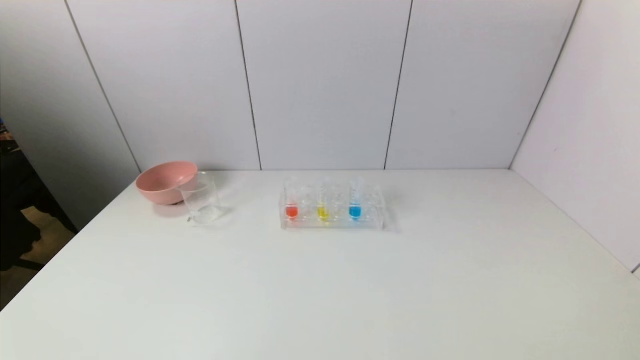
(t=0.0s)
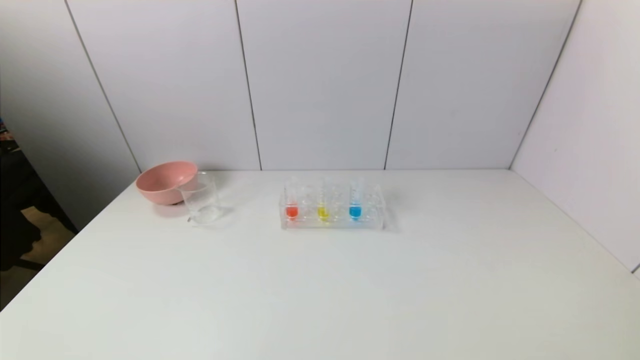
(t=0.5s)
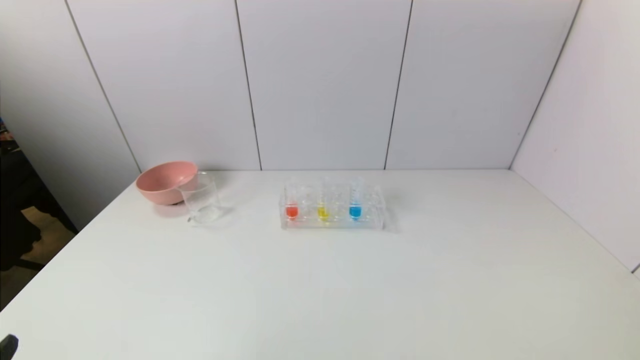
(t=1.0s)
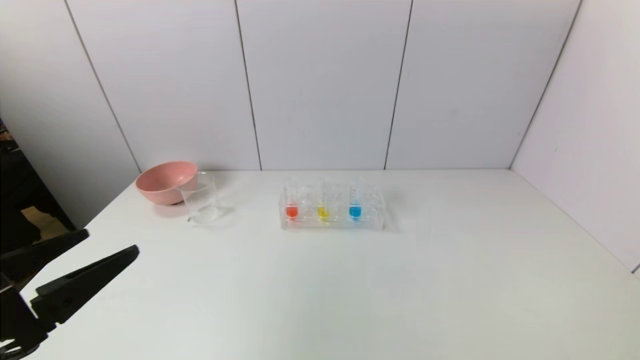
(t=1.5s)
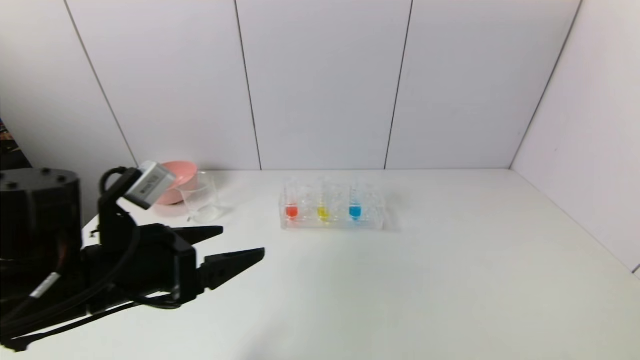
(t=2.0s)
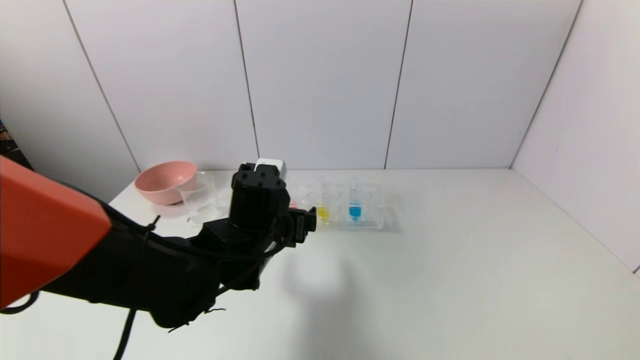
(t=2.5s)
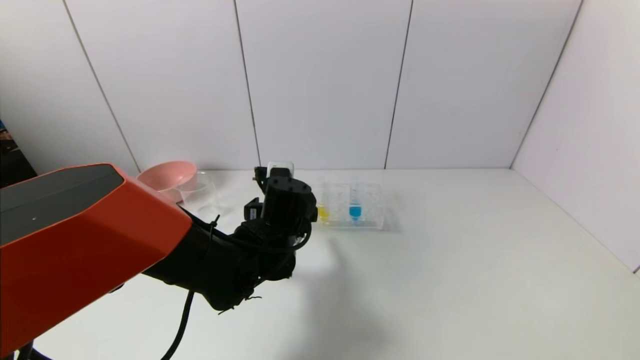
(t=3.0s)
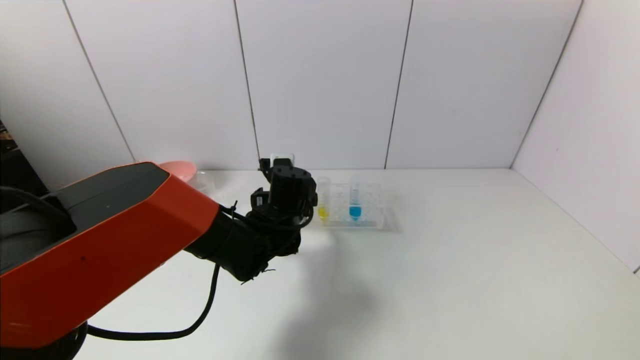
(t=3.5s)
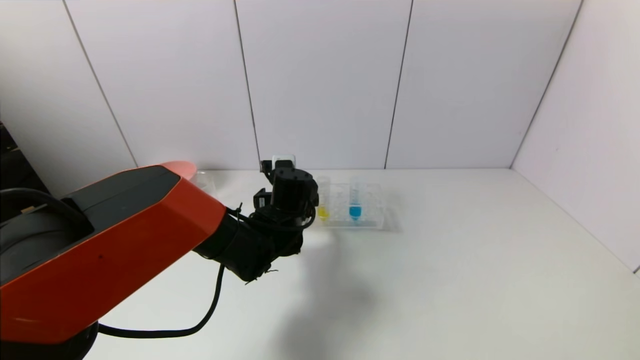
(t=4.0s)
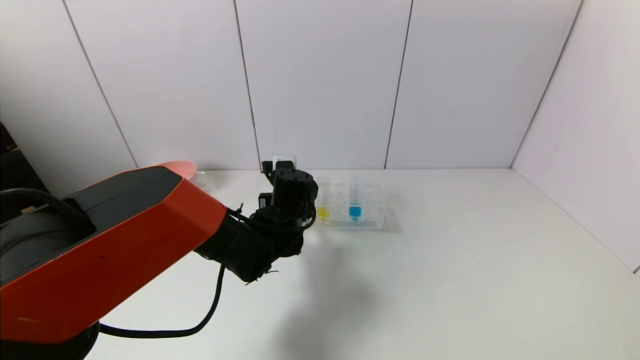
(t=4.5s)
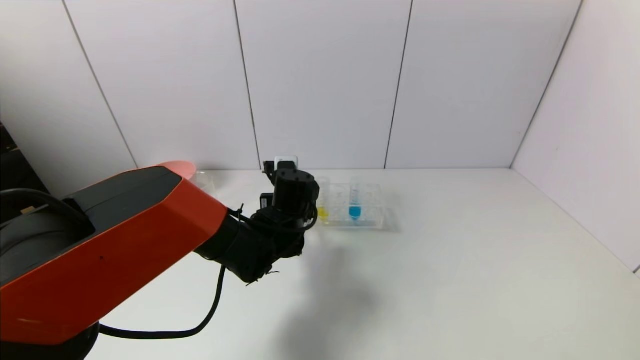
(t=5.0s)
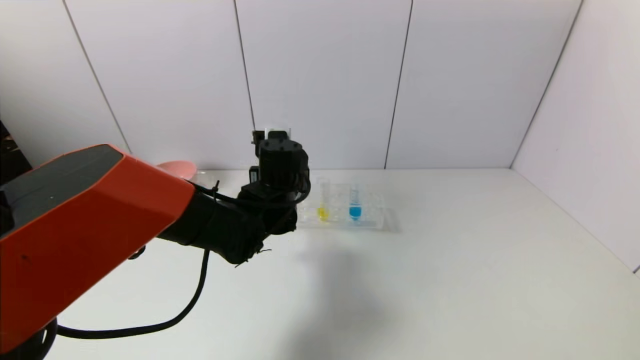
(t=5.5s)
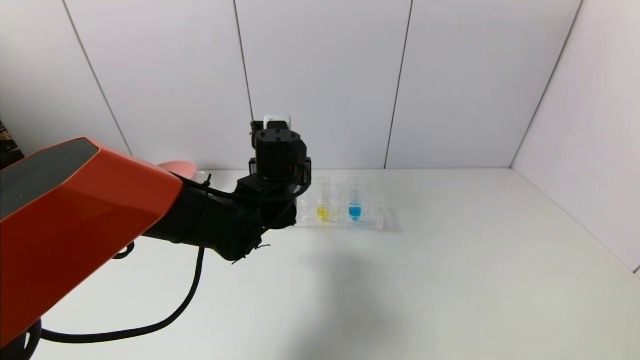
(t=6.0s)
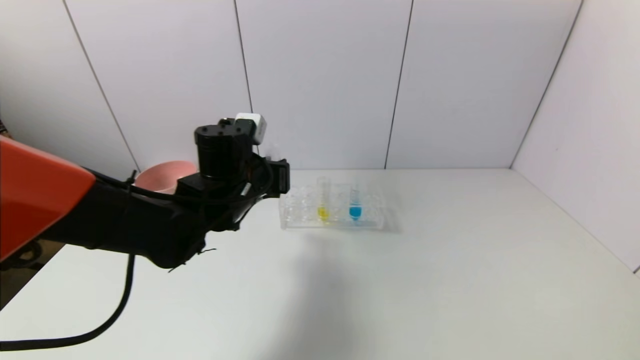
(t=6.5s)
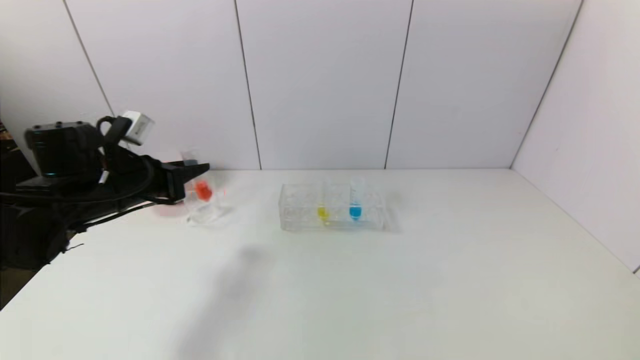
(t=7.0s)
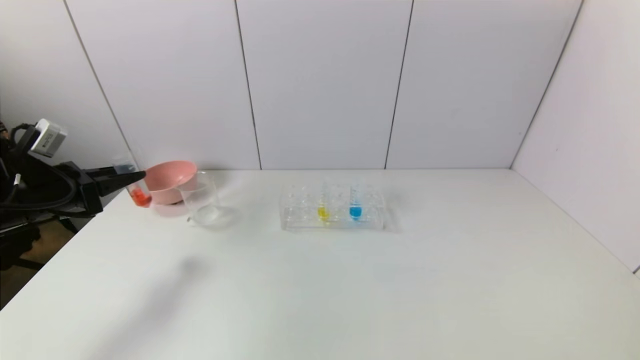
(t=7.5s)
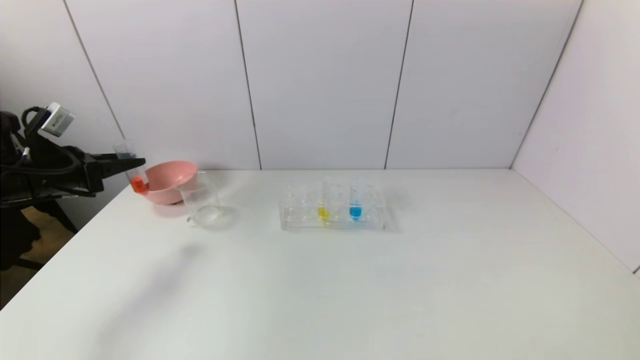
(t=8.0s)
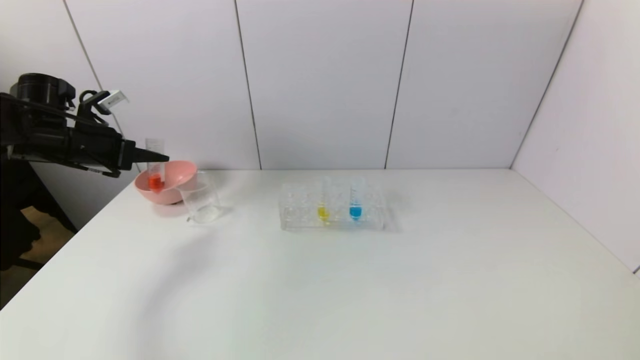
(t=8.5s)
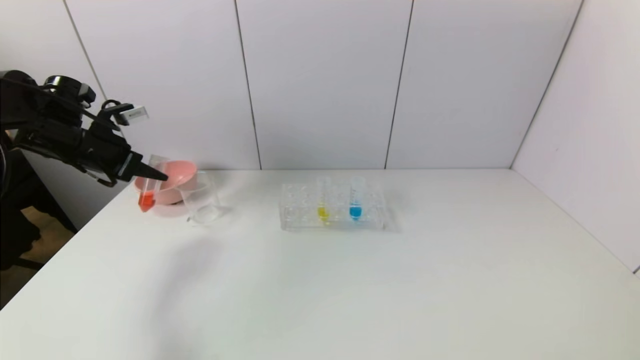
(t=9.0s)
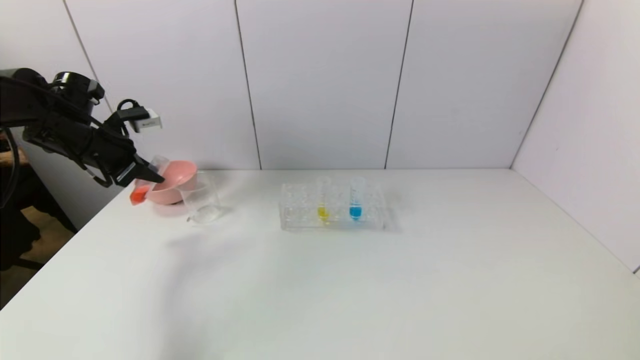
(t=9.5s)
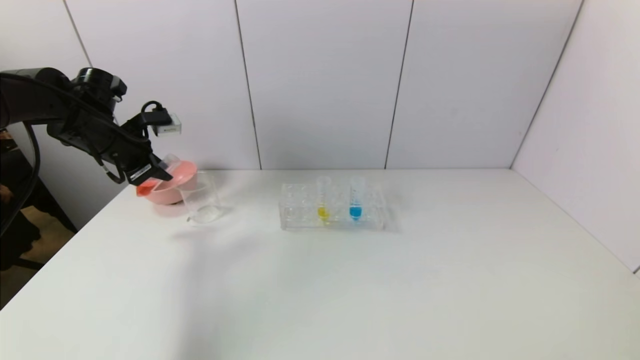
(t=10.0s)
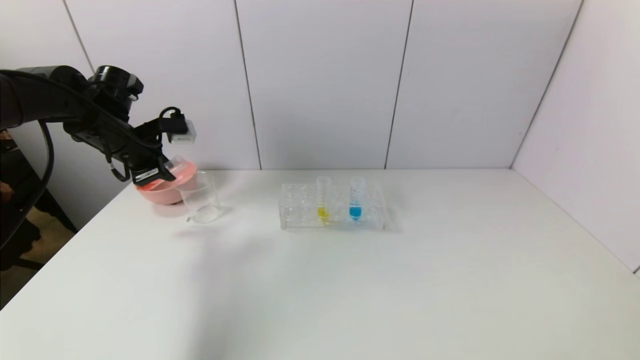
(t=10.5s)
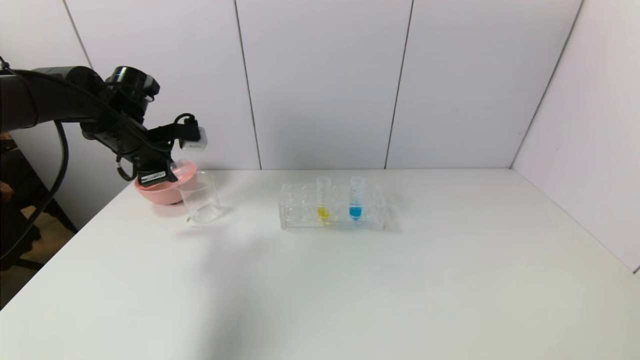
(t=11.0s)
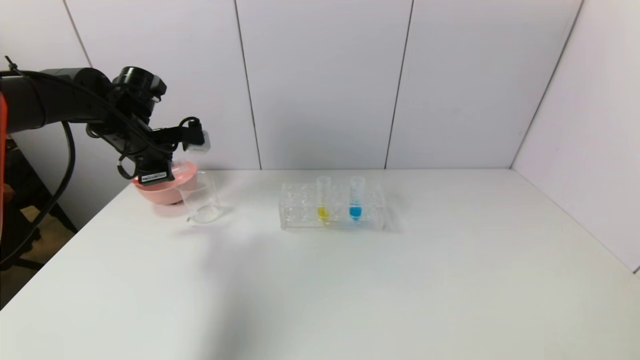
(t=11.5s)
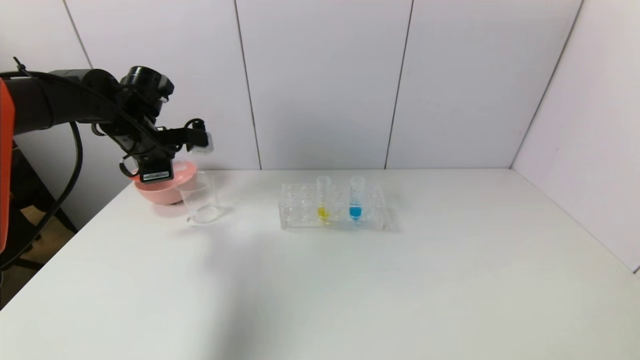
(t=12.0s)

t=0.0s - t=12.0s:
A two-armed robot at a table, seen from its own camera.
Task of the whole recording: pick up the test tube with red pigment and the test tube with blue pigment by grippers and pour them into the container.
Step, t=0.0s - t=4.5s: Grasp the red reagent with the left gripper.
t=0.0s - t=2.0s: The left gripper shifts roughly 25 cm forward, upward and to the right.
t=2.0s - t=4.0s: The left gripper shifts some 25 cm forward, to the right and downward.
t=4.0s - t=6.0s: The left gripper goes roughly 5 cm upward, and closes.
t=6.0s - t=8.0s: The left gripper goes about 35 cm to the left.
t=8.0s - t=10.0s: The left gripper heads to the right and forward, covering approximately 10 cm.
t=10.0s - t=12.0s: The left gripper shifts approximately 5 cm to the right.

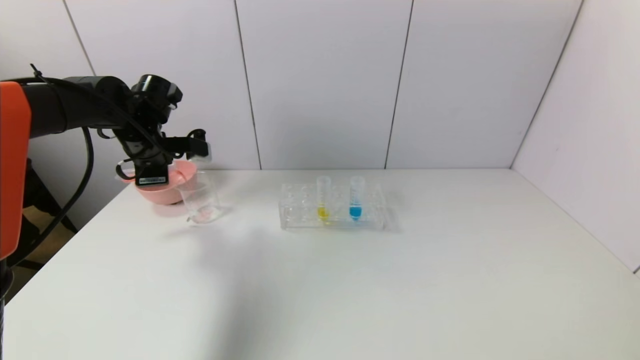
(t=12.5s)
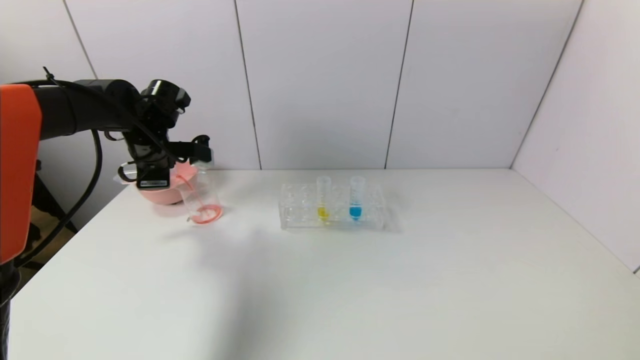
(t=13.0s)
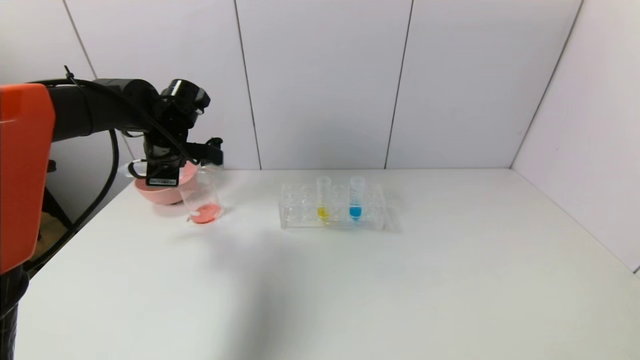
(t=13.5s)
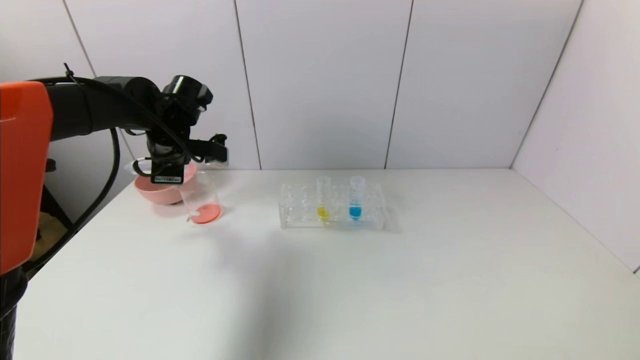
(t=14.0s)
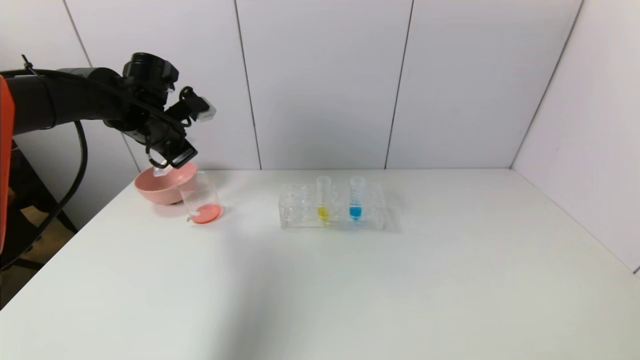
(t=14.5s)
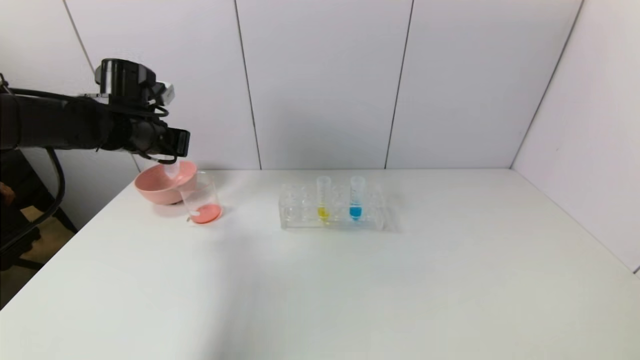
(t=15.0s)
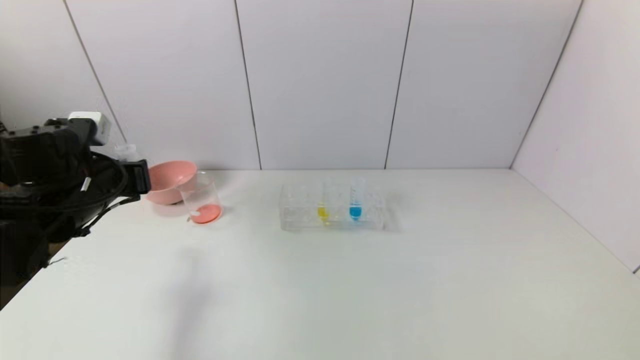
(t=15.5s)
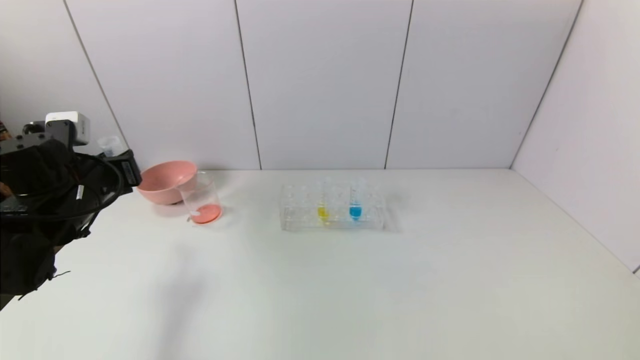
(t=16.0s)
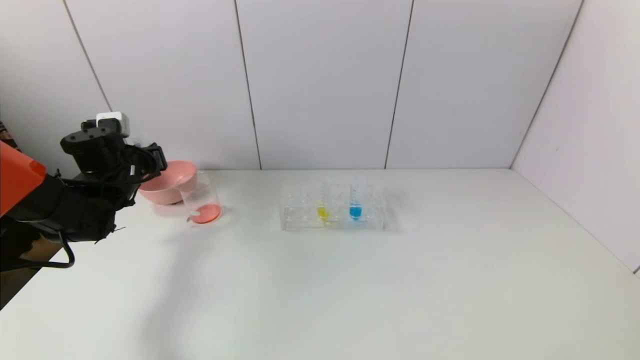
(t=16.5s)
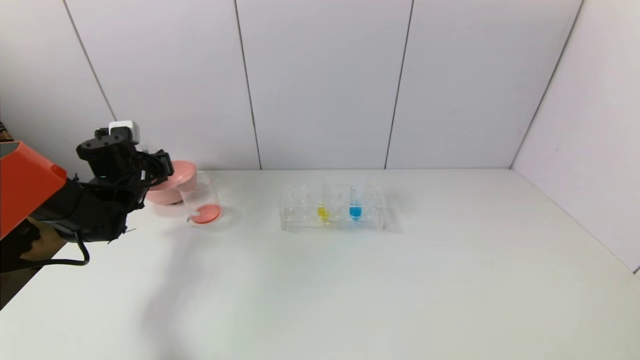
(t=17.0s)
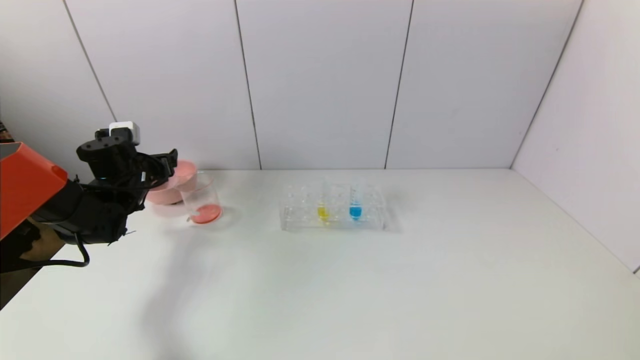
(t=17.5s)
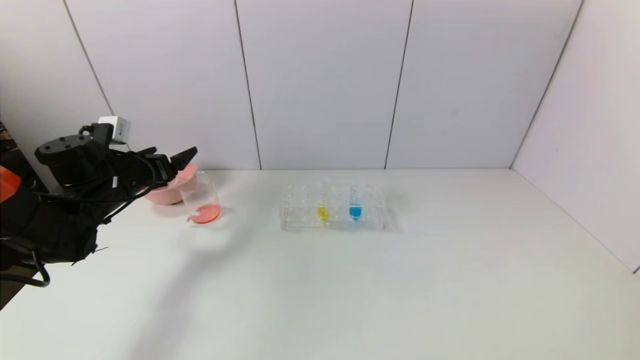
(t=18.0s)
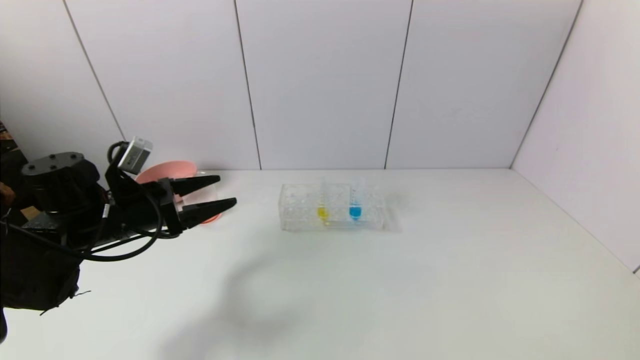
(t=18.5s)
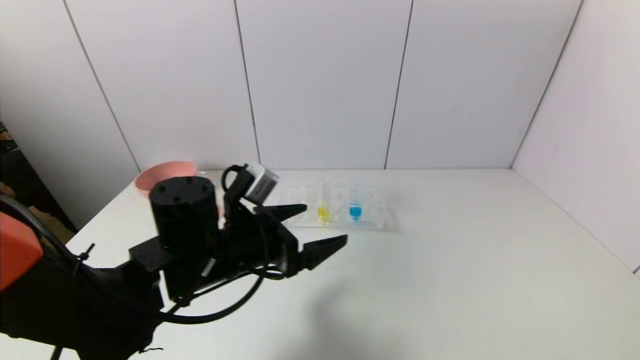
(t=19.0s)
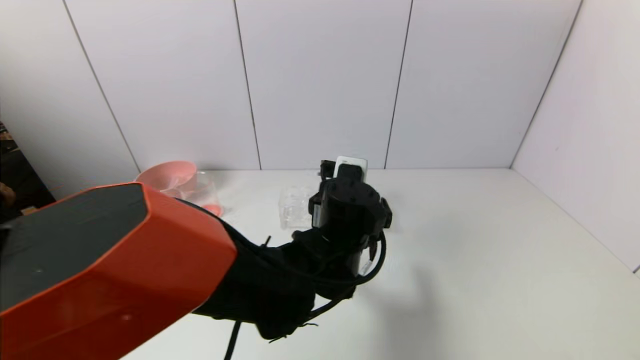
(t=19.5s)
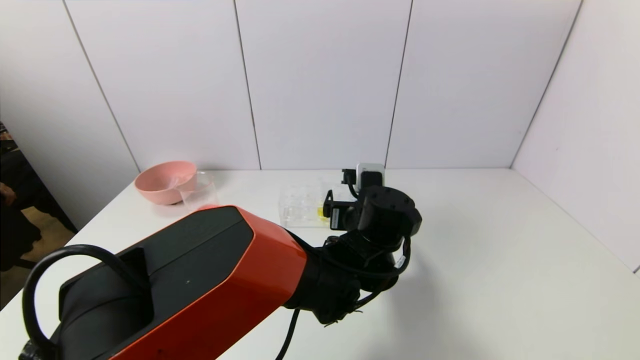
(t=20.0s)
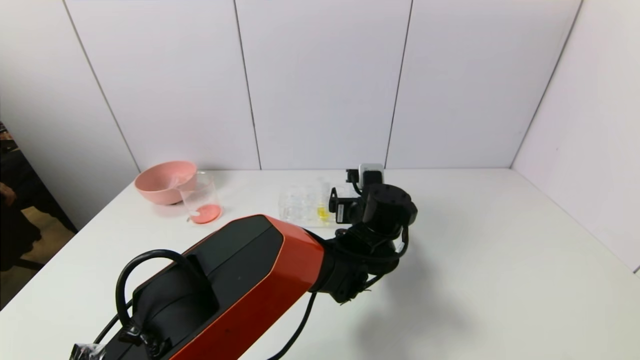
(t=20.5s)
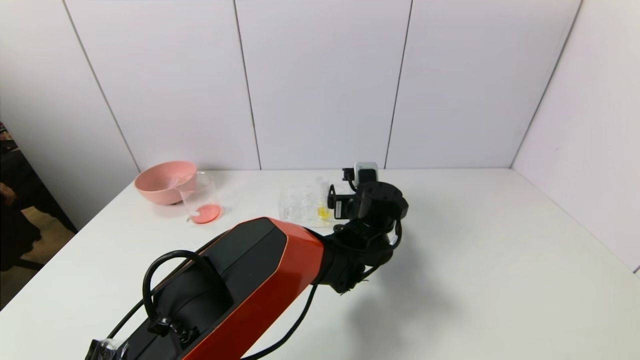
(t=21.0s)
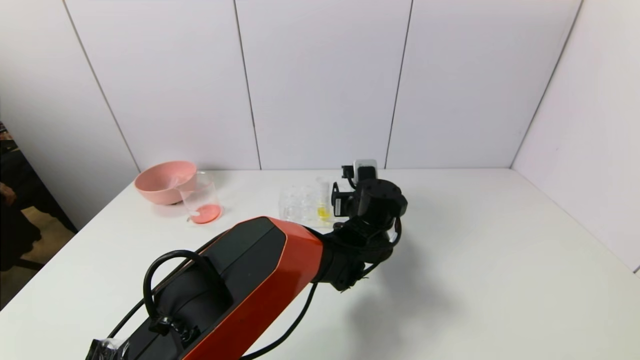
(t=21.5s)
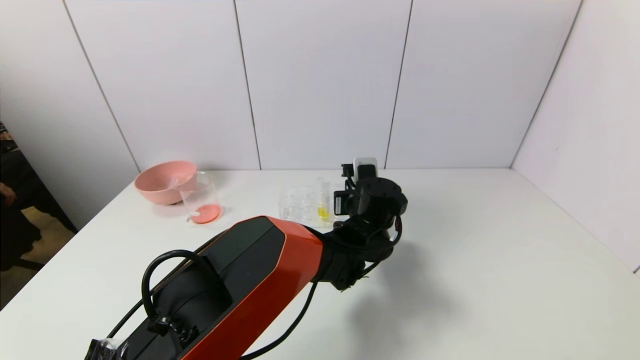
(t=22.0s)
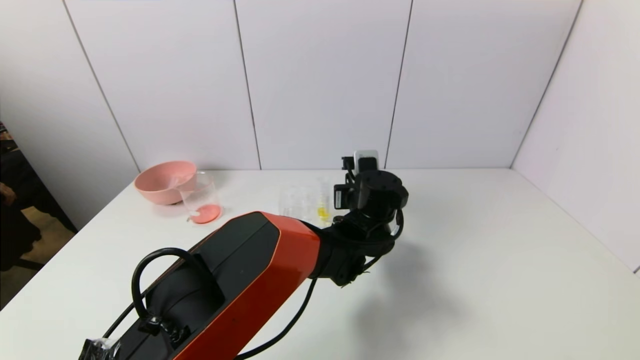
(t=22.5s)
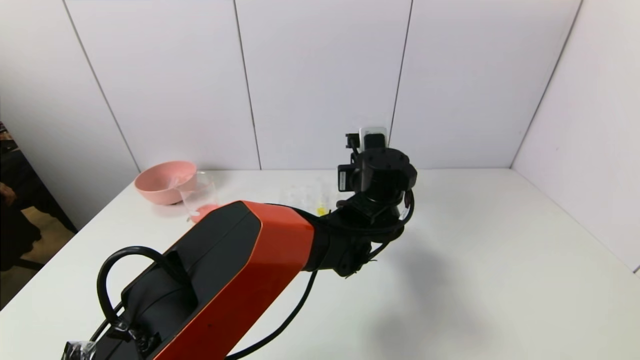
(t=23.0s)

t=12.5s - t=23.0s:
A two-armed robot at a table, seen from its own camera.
Task of the whole recording: pick up the test tube with red pigment and the test tube with blue pigment by grippers and pour them into the container.
Step, t=14.5s - t=17.0s: Place the test tube into the bowl with the left gripper.
Step, t=17.5s - t=21.5s: Grasp the blue reagent with the left gripper.
t=14.5s - t=16.5s: The left gripper moves downward and to the left, about 10 cm, and moves some 15 cm backward and comes back.
t=16.5s - t=19.0s: The left gripper is displaced to the right and backward by some 30 cm, and opens.
t=19.0s - t=21.0s: The left gripper is displaced to the right and forward by about 25 cm.
t=21.0s - t=23.0s: The left gripper shifts roughly 5 cm upward, and closes.
